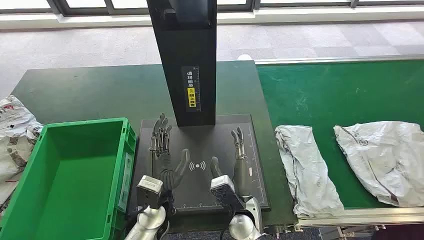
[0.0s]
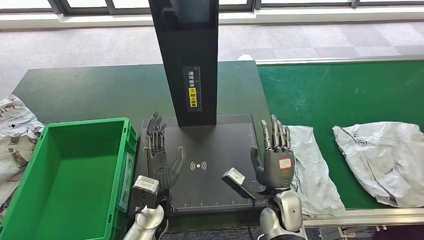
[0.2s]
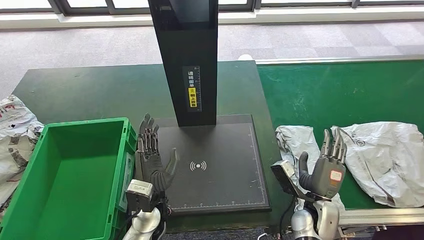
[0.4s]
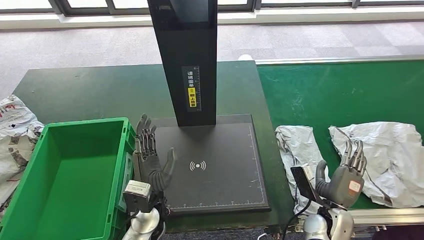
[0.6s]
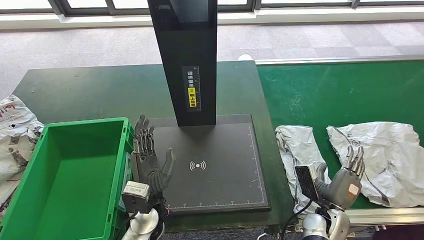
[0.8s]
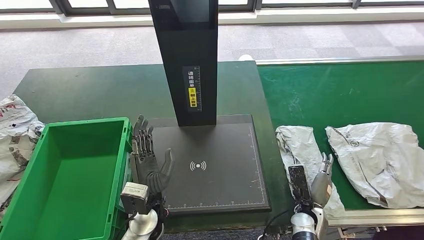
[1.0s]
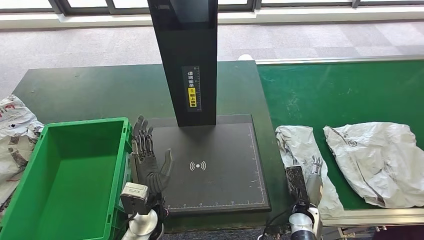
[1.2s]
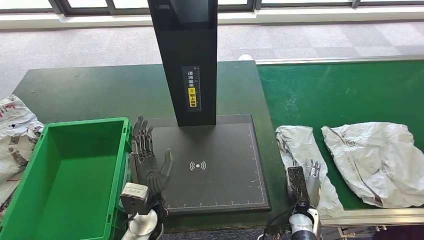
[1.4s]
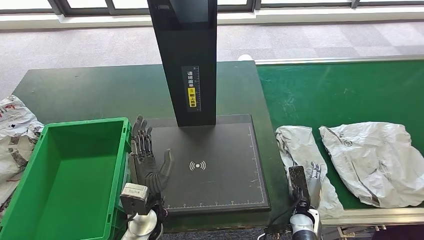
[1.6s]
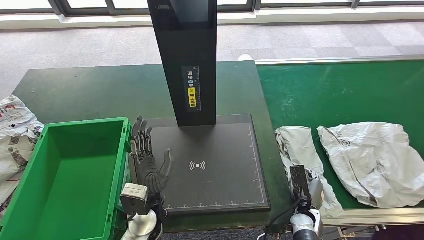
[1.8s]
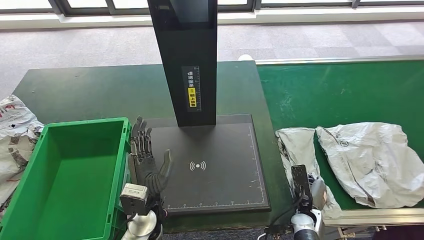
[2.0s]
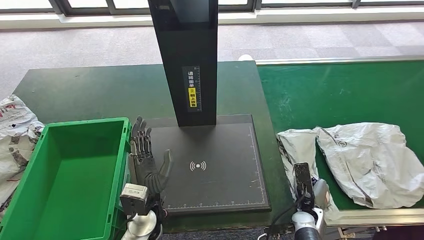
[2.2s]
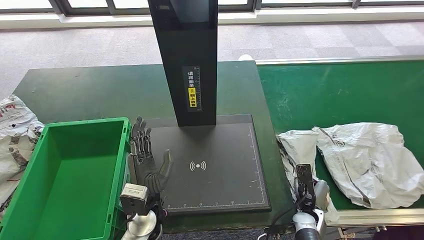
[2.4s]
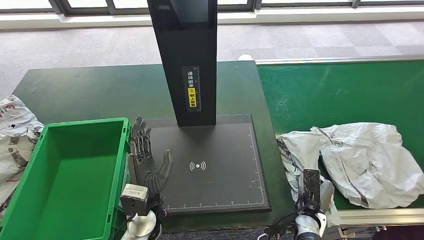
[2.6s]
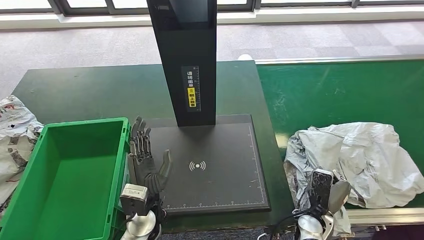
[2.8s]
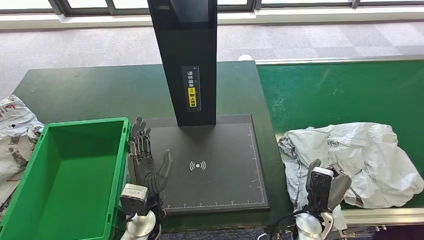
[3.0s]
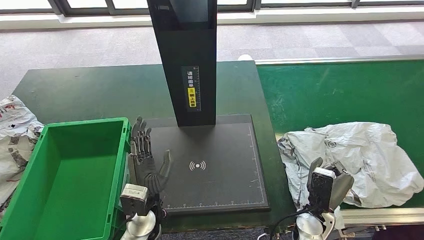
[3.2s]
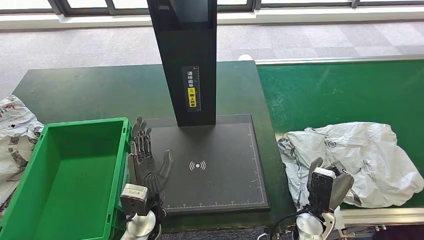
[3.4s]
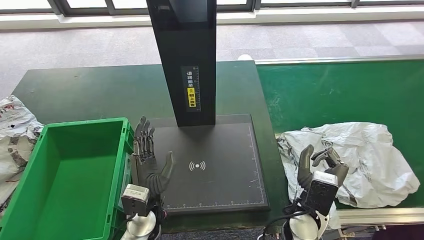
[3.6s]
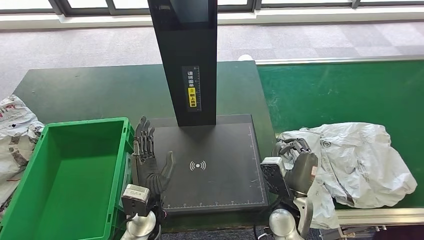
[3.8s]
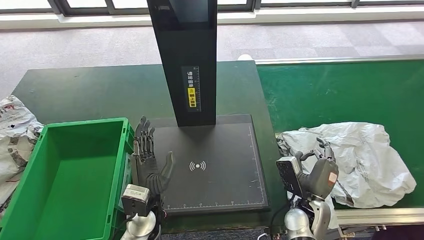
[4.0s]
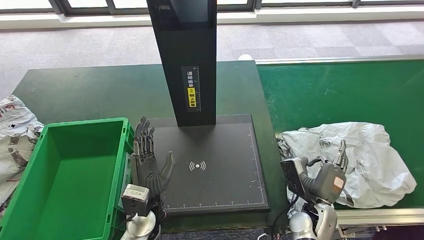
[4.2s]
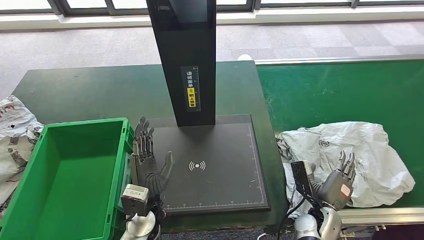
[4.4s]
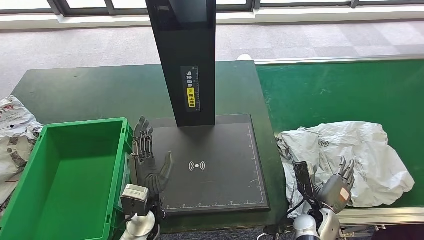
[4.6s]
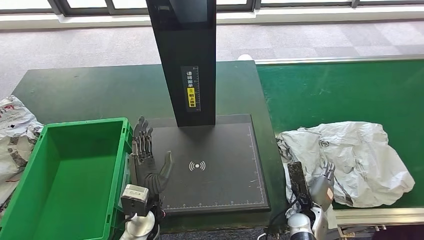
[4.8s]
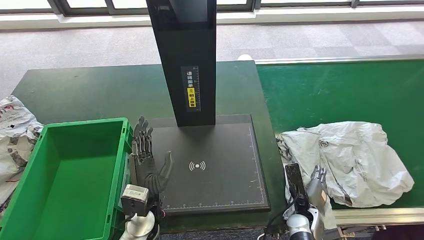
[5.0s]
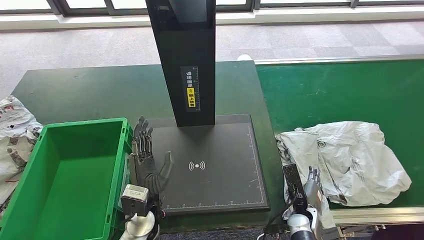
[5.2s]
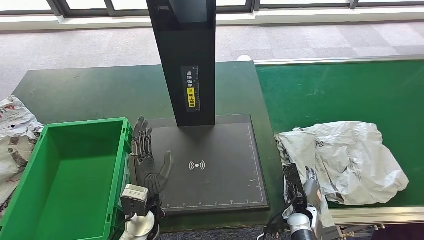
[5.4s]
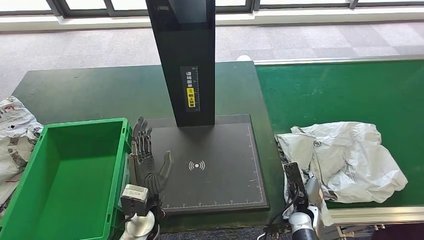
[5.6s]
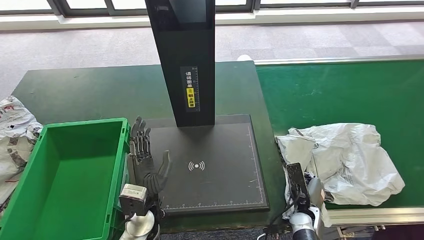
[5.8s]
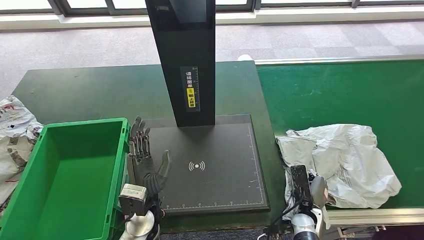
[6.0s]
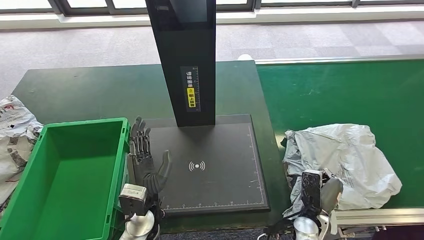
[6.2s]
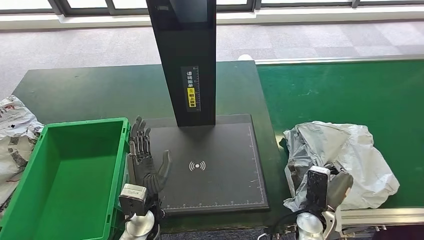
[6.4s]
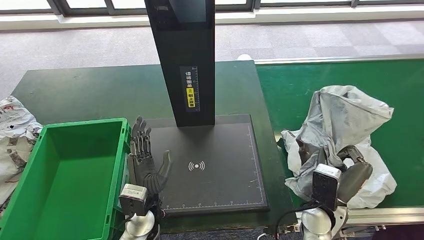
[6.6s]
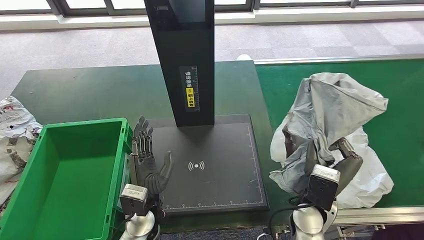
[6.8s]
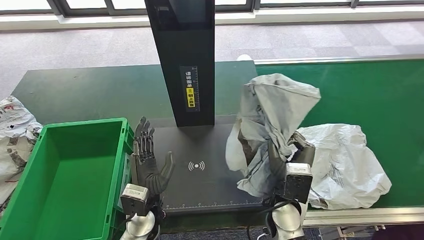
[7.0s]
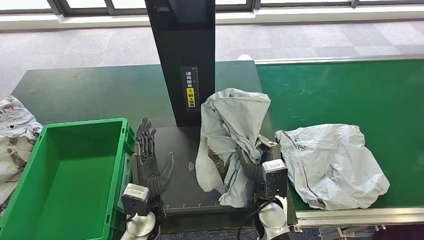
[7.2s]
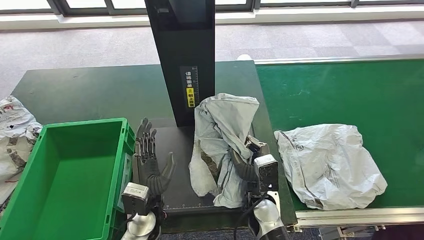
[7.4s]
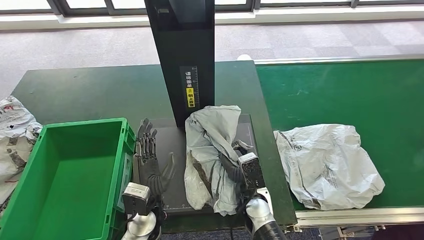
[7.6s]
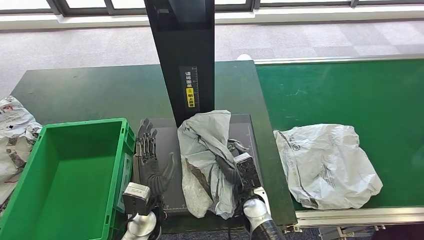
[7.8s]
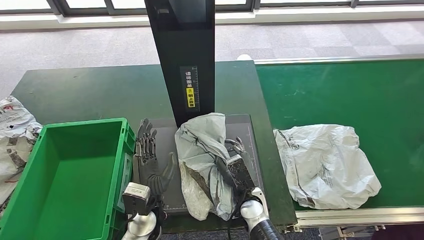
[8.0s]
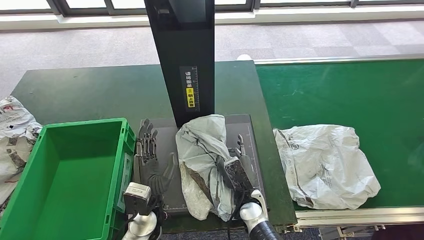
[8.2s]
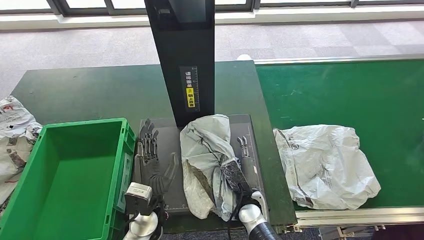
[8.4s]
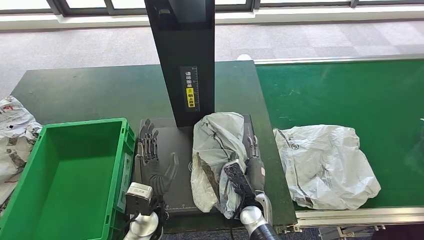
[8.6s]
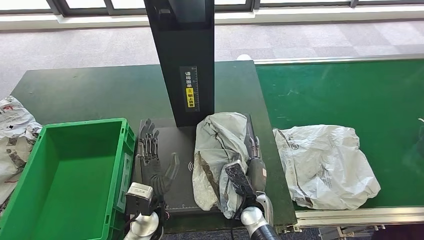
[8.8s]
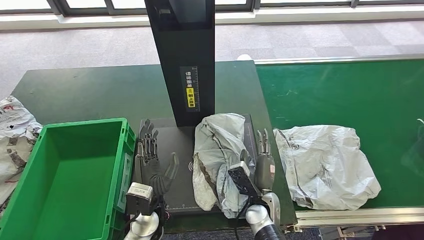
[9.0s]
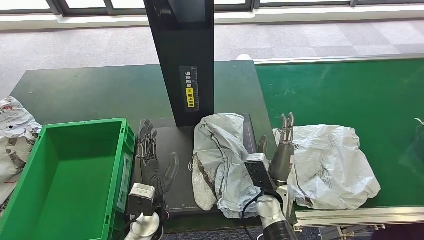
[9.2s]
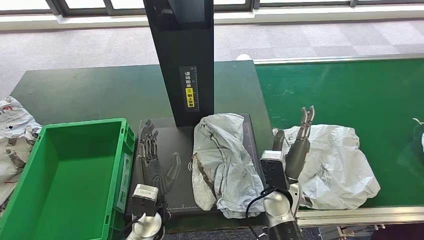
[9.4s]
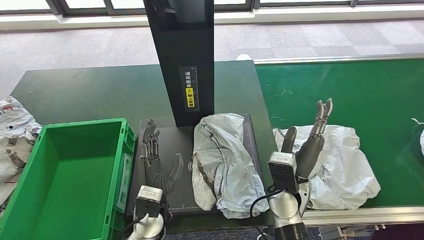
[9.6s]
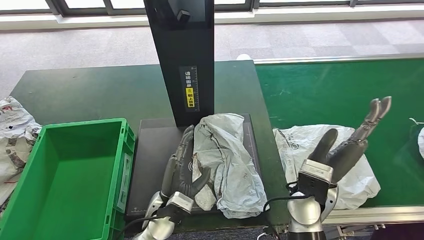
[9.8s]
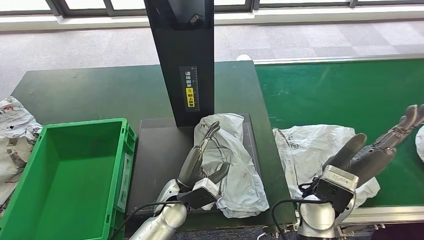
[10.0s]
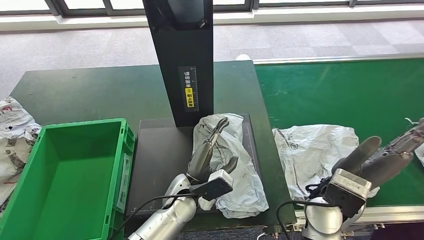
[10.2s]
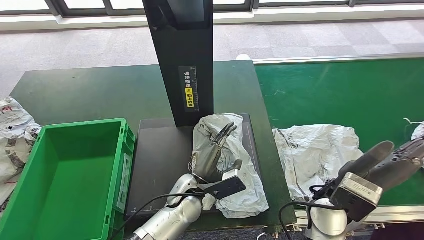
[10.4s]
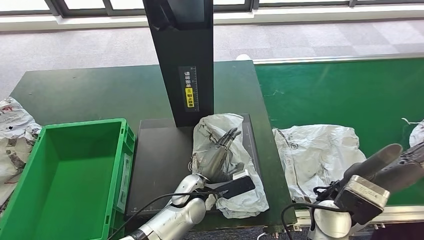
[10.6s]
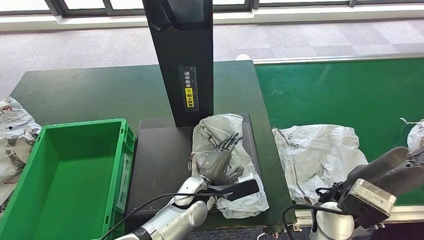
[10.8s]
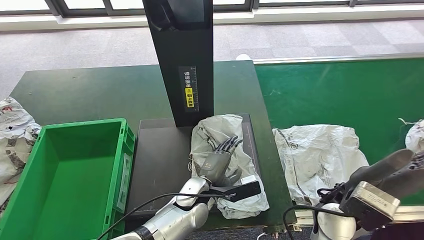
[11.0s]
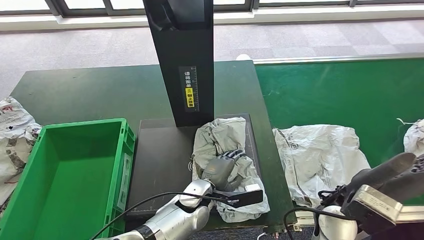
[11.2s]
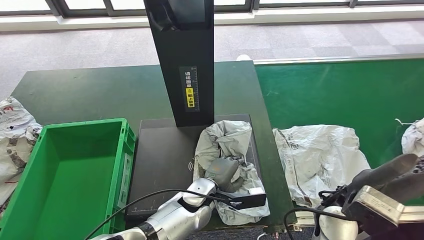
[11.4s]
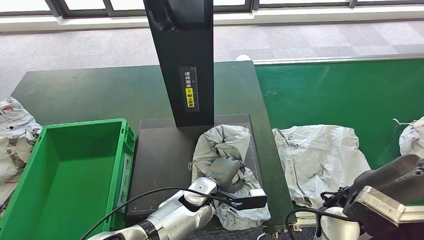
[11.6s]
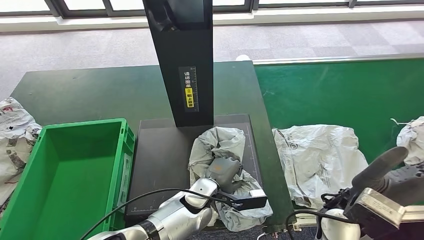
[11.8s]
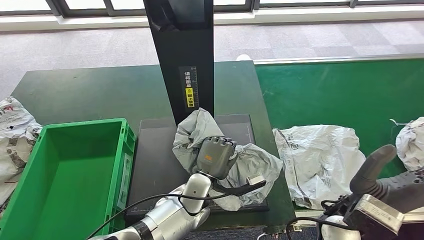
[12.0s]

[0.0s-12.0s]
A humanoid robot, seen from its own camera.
Step, 0.0s to 7.2s: Take the parcel off the conveyor belt.
Step, 7.4s to 9.6s: Place the parcel onto the inbound machine.
1.6s to 3.0s: The right hand goes some 5 cm upward.
6.0s to 7.6s: The right hand moves to the left and upward, about 15 cm.
9.0s to 10.4s: The right hand goes about 20 cm upward and to the right. The left hand shifts about 10 cm to the right.

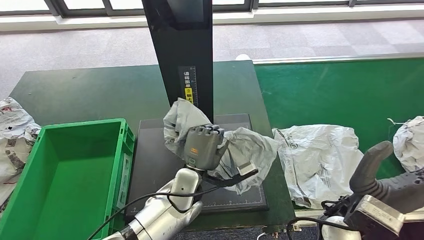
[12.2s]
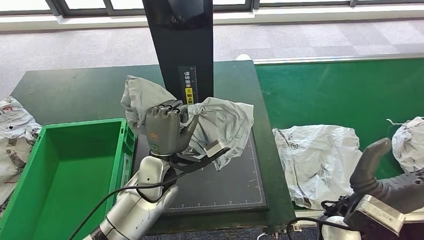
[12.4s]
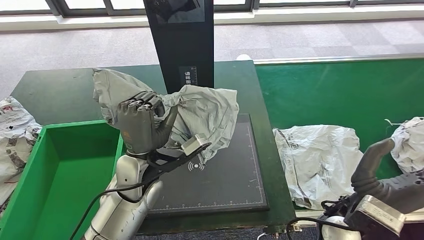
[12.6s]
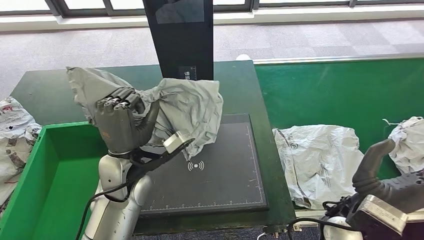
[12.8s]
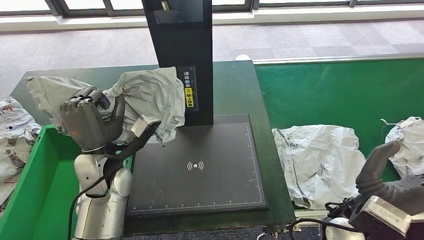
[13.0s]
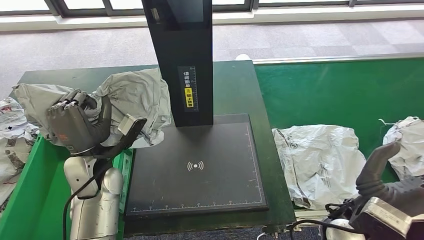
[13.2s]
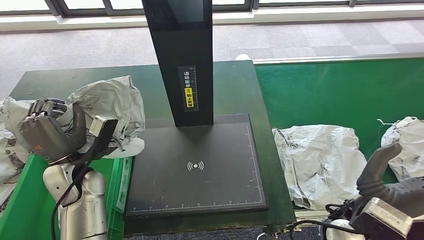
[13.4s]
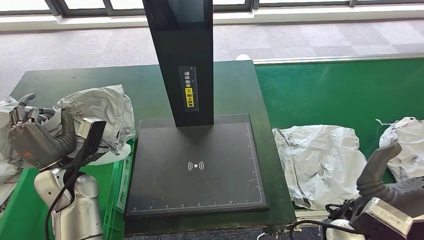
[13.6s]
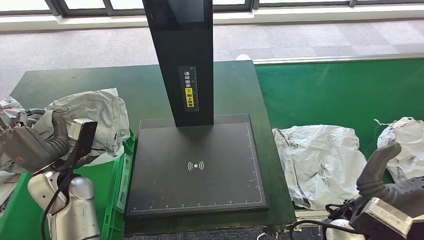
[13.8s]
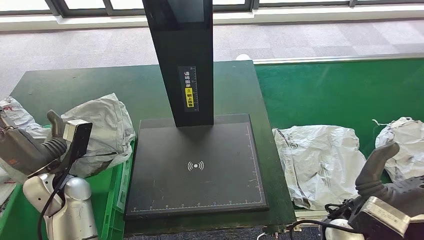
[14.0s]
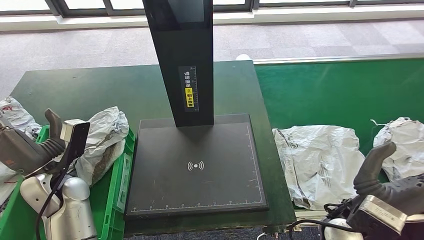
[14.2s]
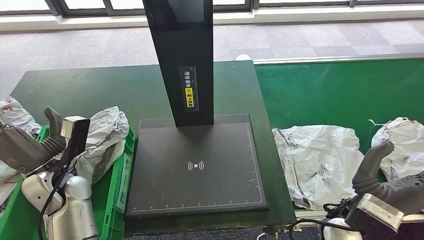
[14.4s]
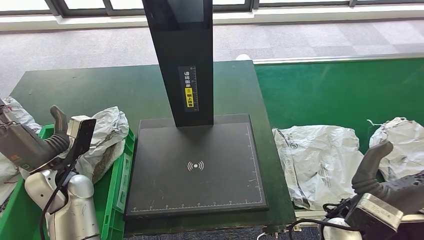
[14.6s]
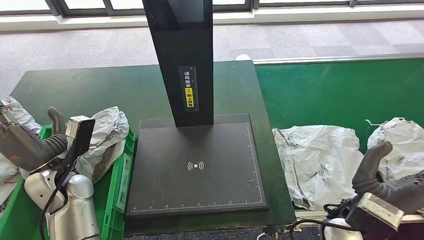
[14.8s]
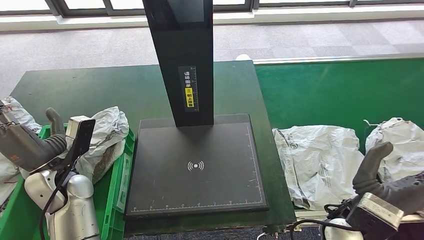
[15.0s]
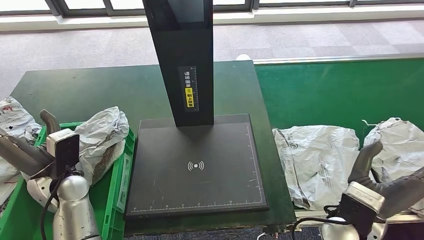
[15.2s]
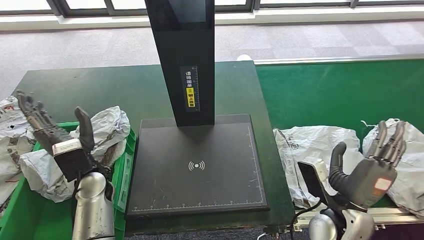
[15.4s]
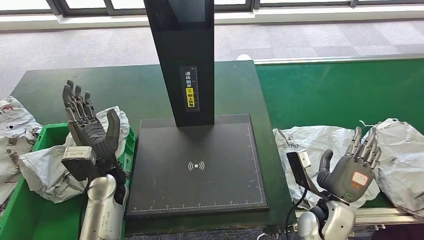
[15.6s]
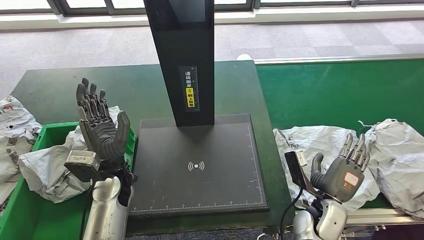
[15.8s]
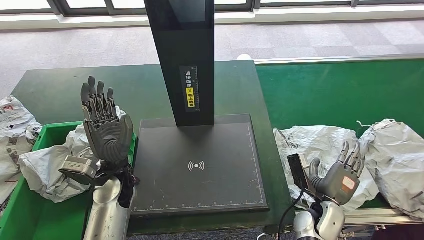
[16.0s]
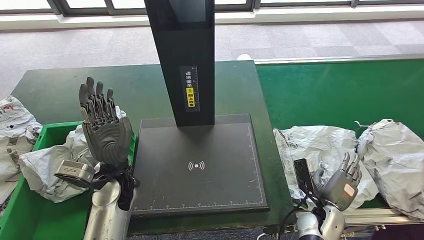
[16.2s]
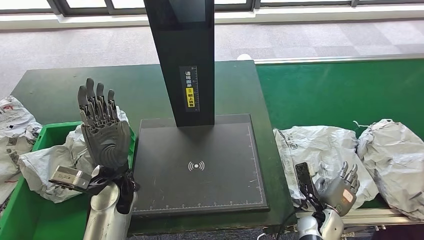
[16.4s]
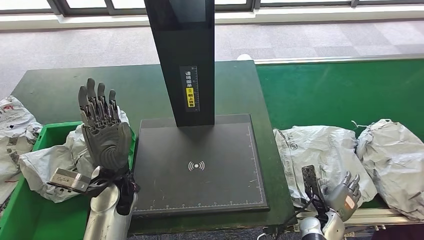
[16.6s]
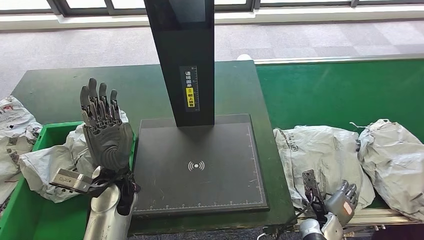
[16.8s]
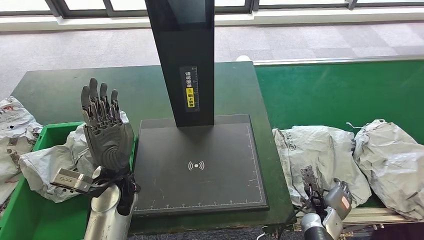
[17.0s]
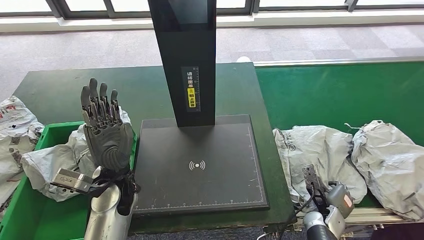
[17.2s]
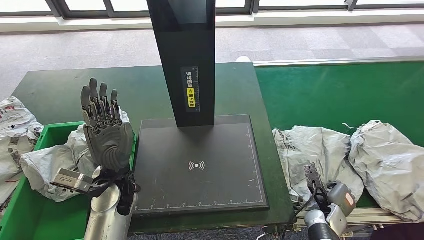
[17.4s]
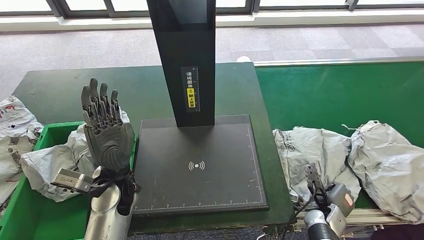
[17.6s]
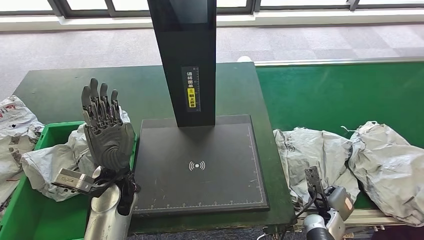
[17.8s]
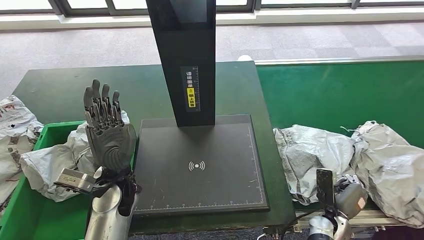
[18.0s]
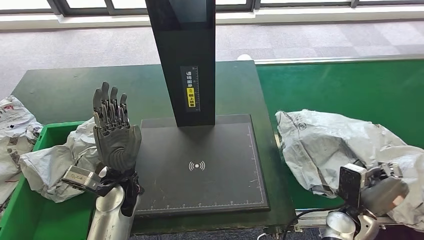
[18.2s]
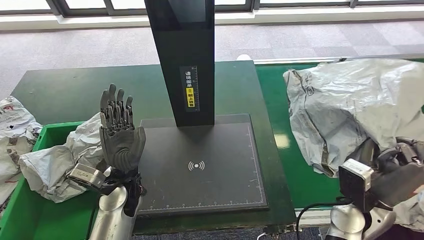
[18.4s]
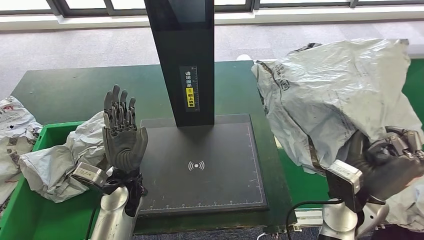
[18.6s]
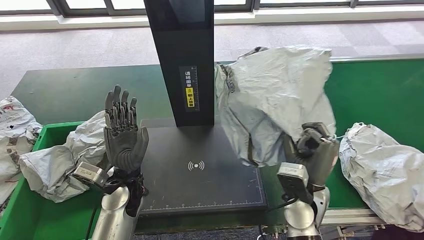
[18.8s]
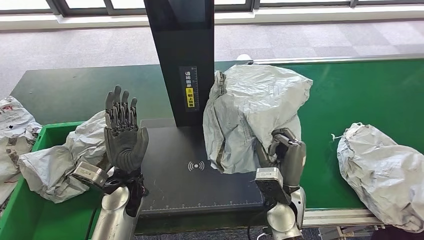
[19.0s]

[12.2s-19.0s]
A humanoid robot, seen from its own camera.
Step, 13.2s to 16.2s: Put the parcel inside the courier box.
Step, 16.4s to 19.0s: Pick up the parcel from the conveyor belt.
13.6s to 15.0s: There are only small adjustments of the hands.
